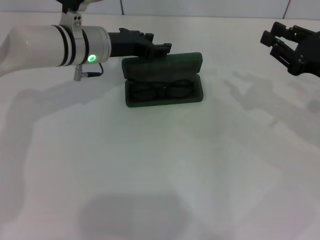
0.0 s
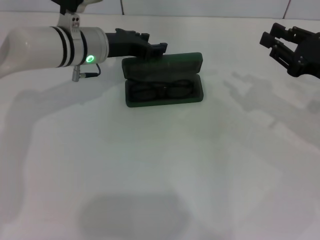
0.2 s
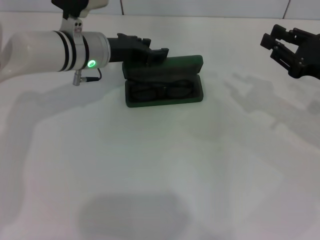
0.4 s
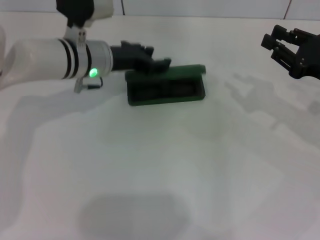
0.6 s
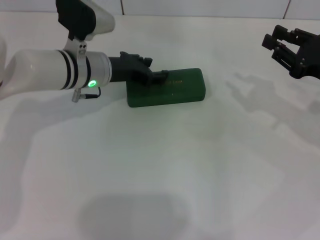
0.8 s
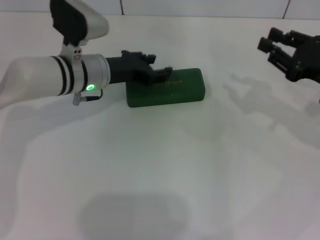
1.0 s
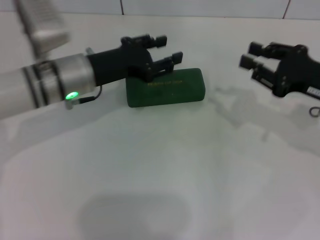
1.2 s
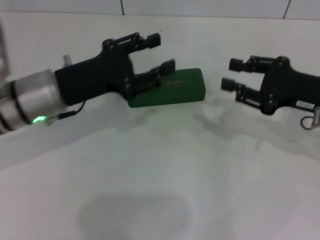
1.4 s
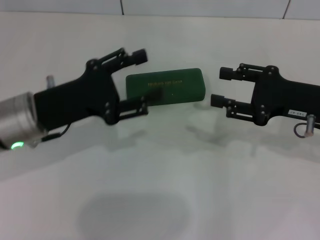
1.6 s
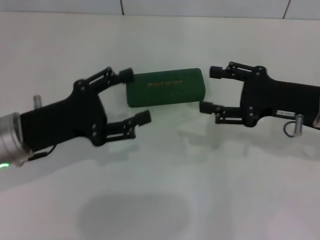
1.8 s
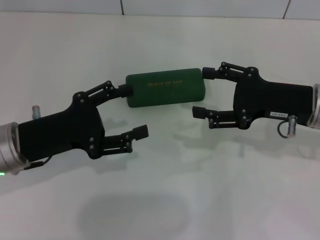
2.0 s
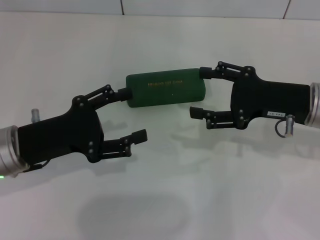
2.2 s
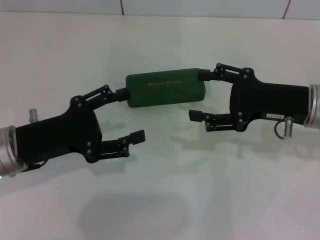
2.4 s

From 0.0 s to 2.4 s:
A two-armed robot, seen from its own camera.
From 0.0 s to 1.2 s: The left gripper goes approximately 5 cm backward.
From 1.2 s to 2.4 s: The right gripper shifts some 5 cm to the left, and opens its fingers, while the left gripper heads backward and to the left, covering some 15 cm, and opens up.
